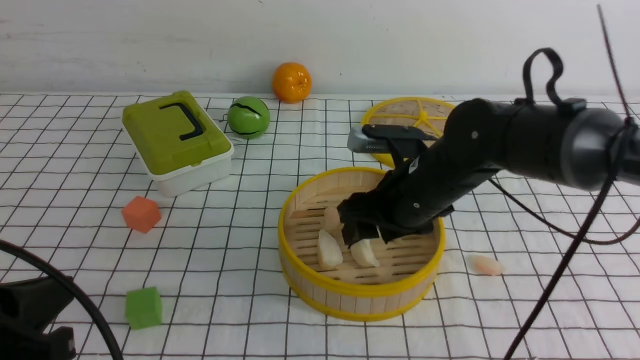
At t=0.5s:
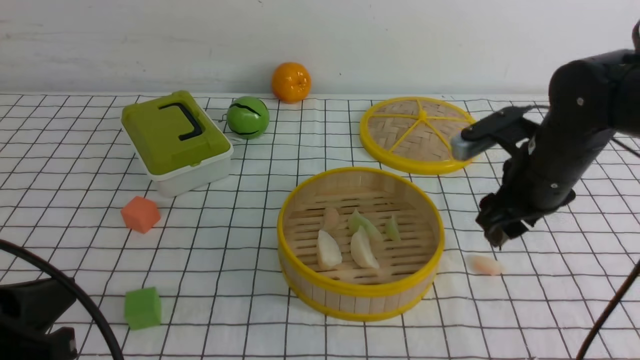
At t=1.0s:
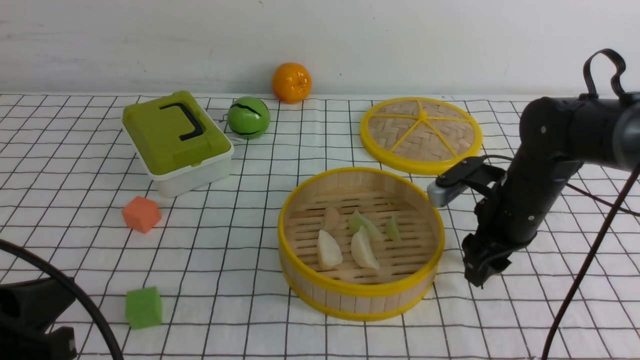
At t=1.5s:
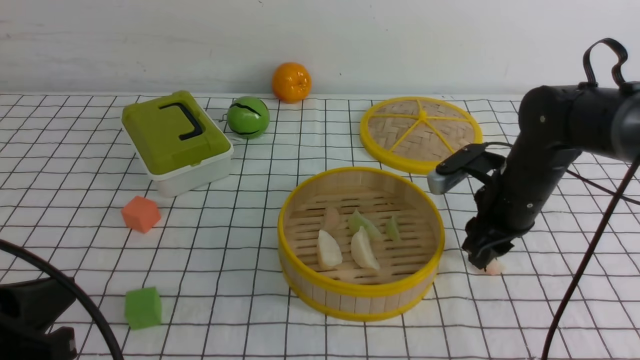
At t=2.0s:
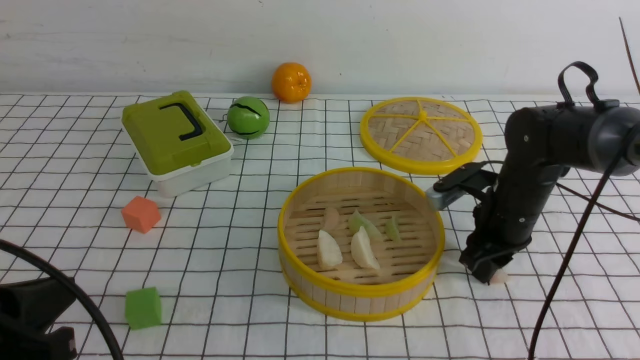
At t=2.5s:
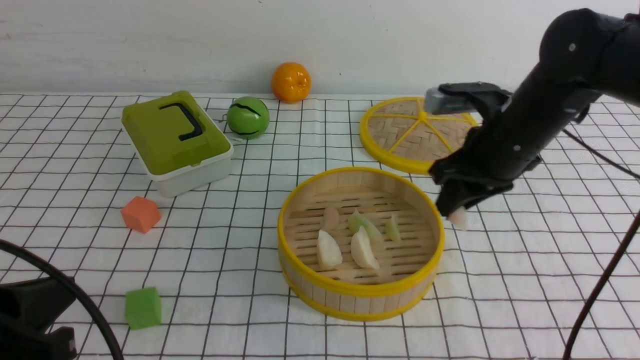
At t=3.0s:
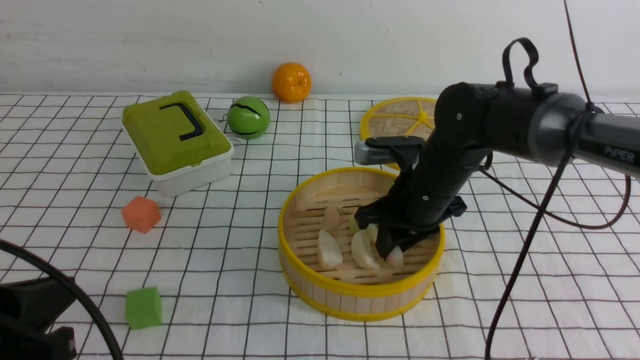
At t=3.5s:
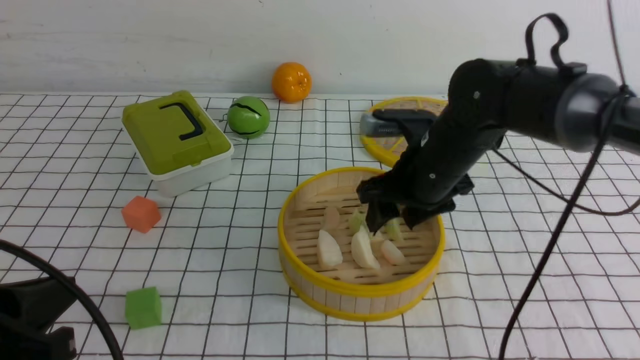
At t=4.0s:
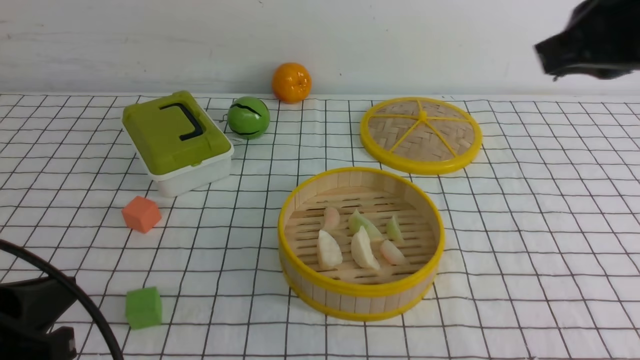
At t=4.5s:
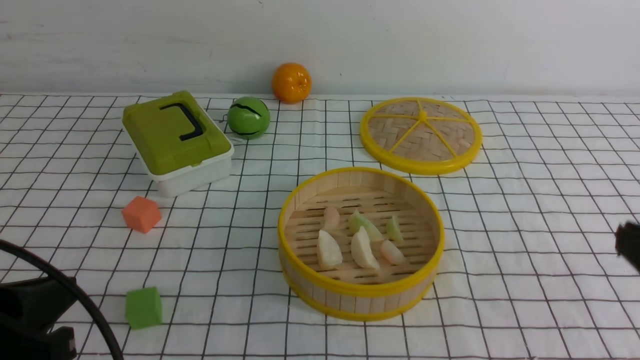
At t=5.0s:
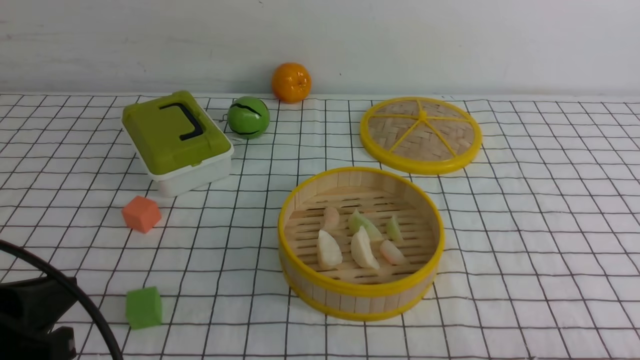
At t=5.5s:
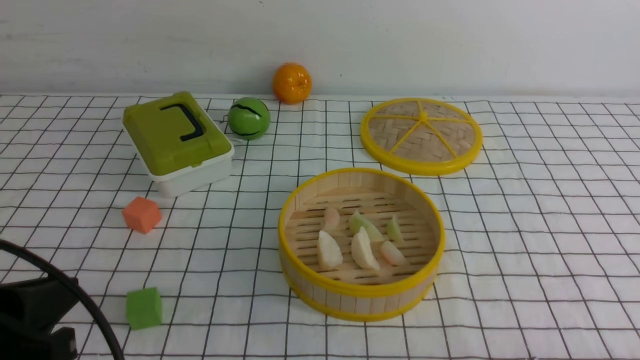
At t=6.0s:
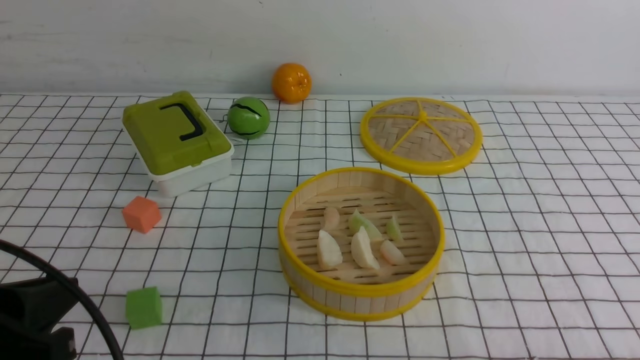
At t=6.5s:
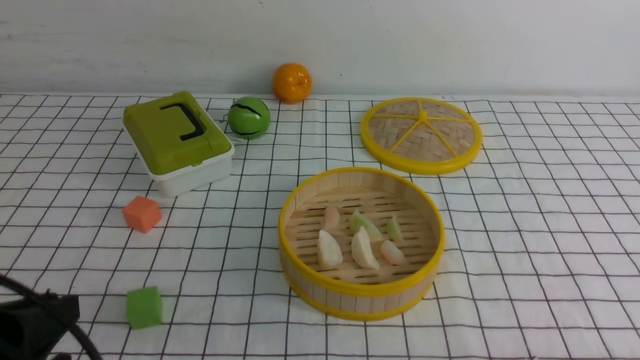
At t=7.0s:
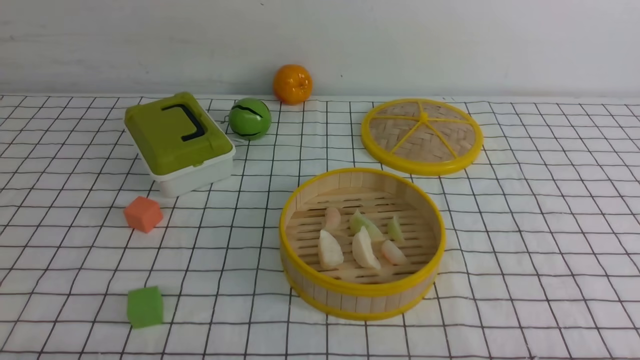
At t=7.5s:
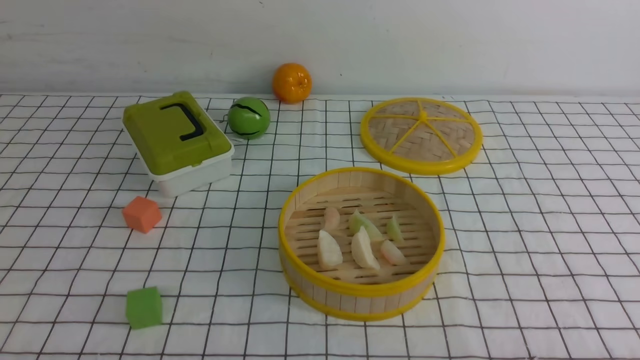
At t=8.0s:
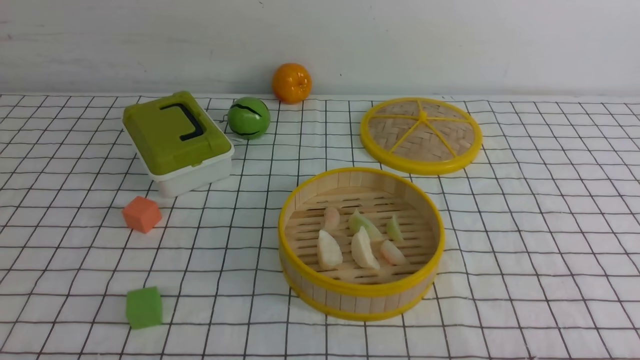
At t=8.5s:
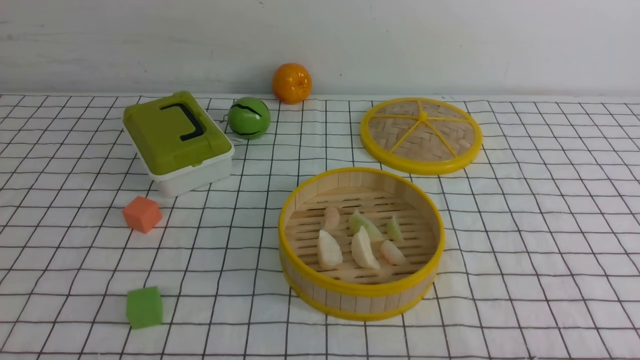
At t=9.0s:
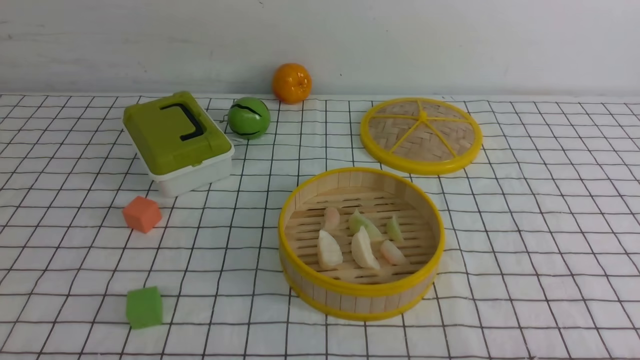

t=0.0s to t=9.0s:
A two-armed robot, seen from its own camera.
Task of the whole recording: put the dumplings into the steamer on the table with the white tablecloth.
Step, t=0.5s to t=1.5s: use the right arm to grab a dumpling.
Step, t=2.0s to t=3.5s: use the right arm to put the dumpling into the steamer.
t=0.0s to t=2.0s: The right gripper shifts about 10 cm to the right and downward, and closes.
t=2.0s to t=4.5s: The right gripper goes some 30 cm backward and upward, and closes.
t=4.5s to t=7.0s: The grippers both shift downward and backward by some 10 cm.
